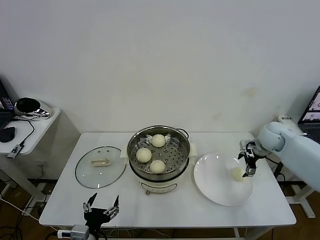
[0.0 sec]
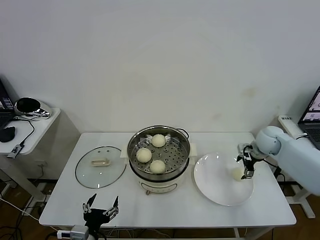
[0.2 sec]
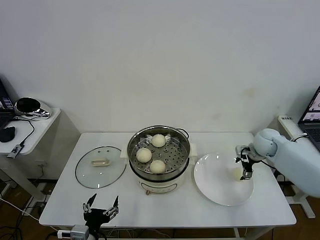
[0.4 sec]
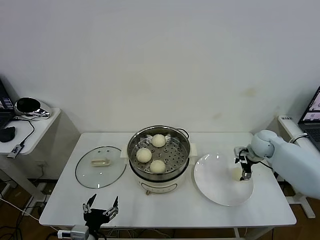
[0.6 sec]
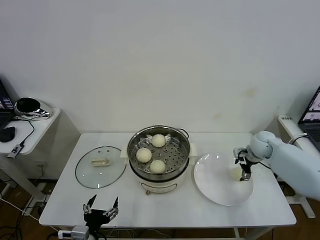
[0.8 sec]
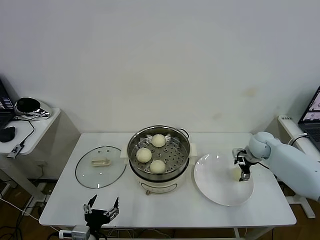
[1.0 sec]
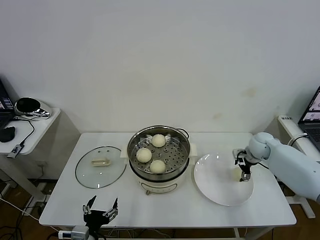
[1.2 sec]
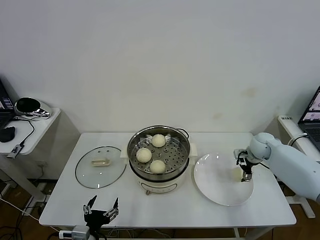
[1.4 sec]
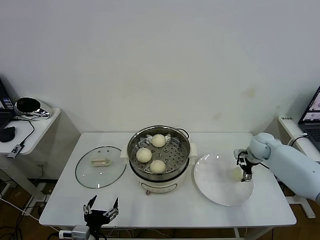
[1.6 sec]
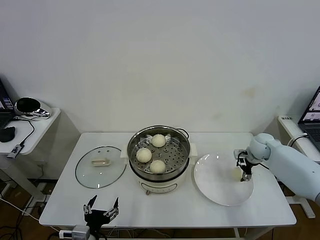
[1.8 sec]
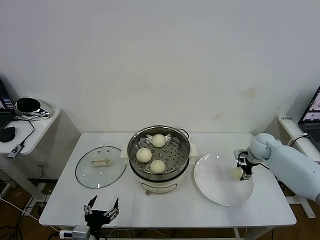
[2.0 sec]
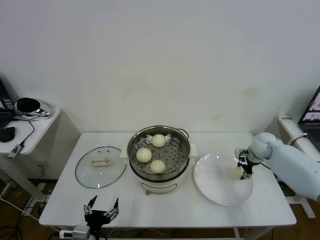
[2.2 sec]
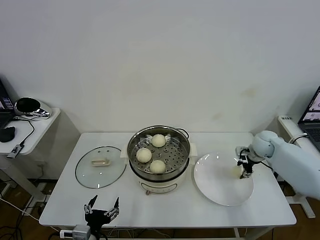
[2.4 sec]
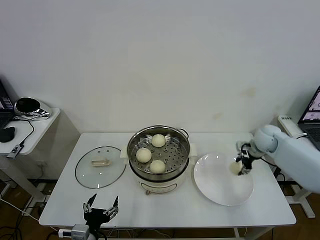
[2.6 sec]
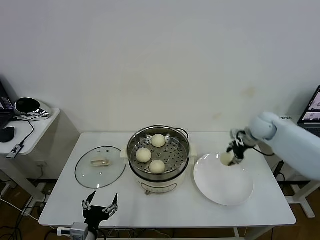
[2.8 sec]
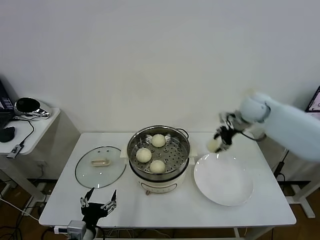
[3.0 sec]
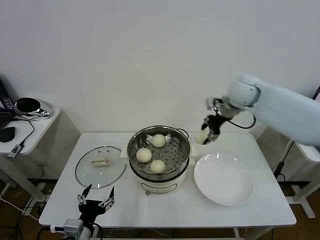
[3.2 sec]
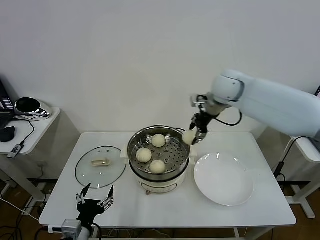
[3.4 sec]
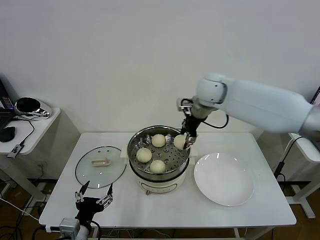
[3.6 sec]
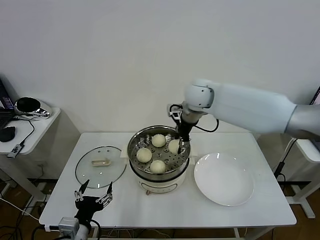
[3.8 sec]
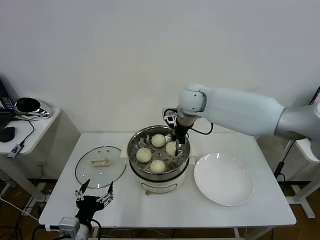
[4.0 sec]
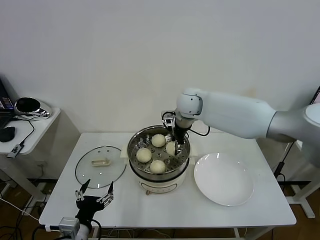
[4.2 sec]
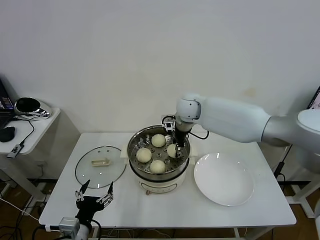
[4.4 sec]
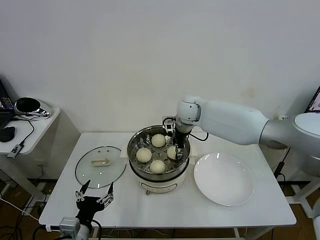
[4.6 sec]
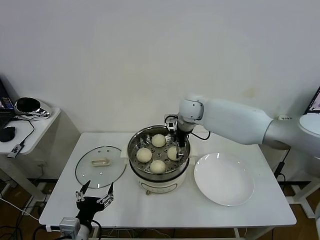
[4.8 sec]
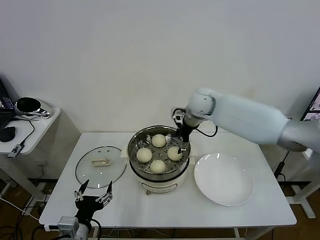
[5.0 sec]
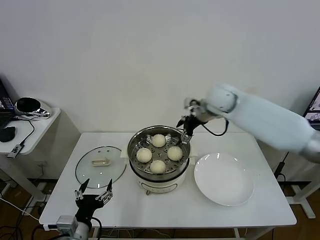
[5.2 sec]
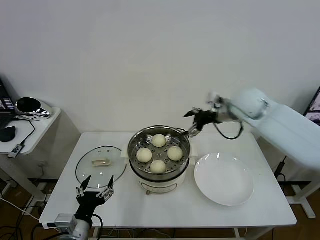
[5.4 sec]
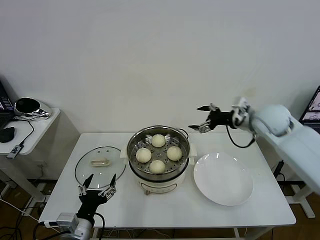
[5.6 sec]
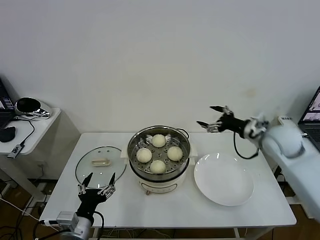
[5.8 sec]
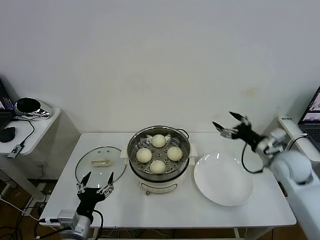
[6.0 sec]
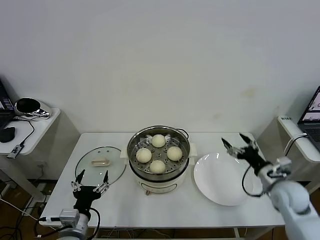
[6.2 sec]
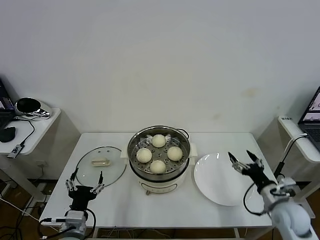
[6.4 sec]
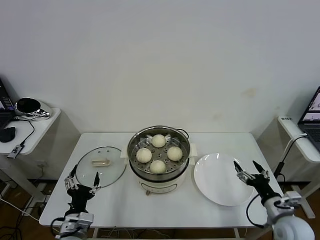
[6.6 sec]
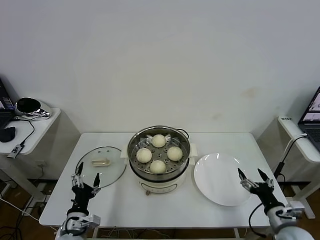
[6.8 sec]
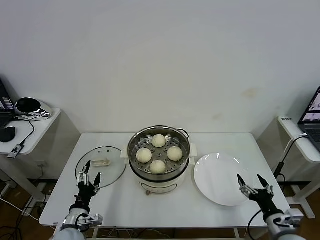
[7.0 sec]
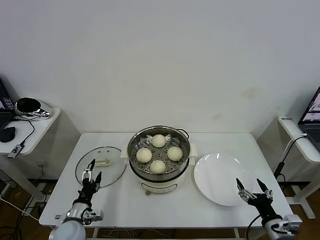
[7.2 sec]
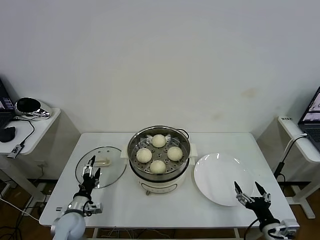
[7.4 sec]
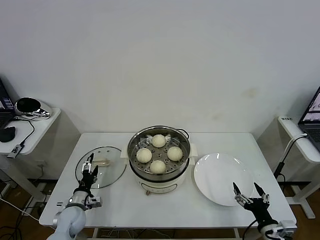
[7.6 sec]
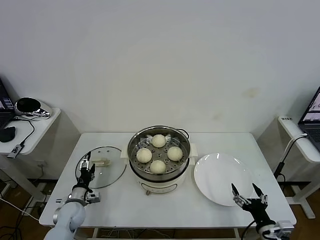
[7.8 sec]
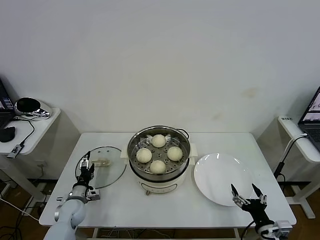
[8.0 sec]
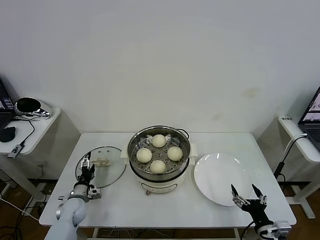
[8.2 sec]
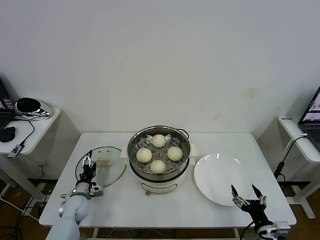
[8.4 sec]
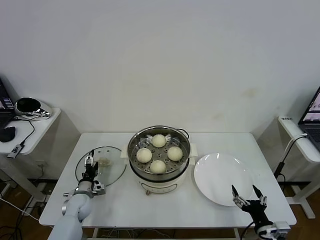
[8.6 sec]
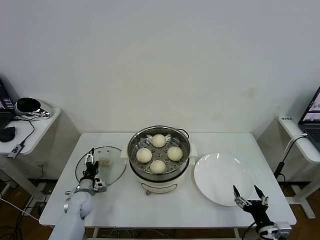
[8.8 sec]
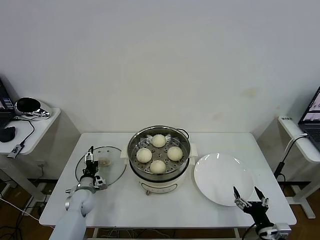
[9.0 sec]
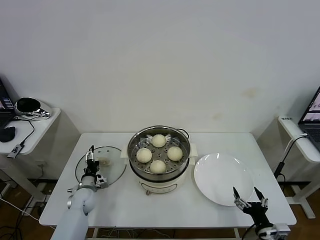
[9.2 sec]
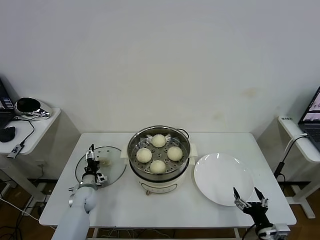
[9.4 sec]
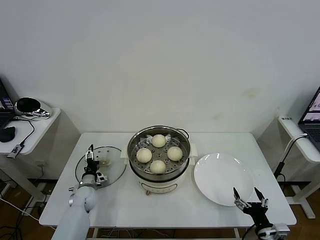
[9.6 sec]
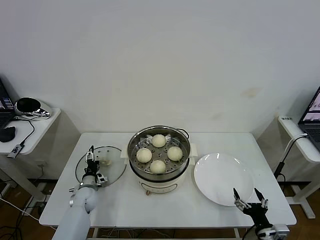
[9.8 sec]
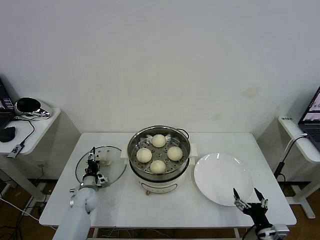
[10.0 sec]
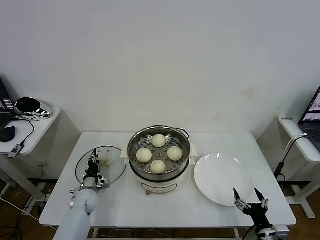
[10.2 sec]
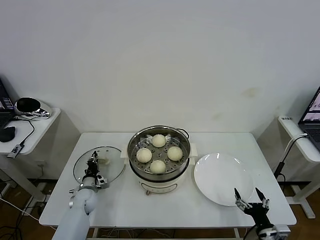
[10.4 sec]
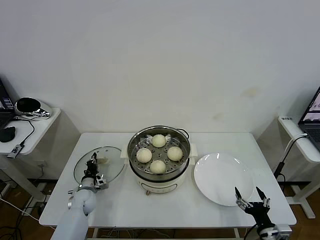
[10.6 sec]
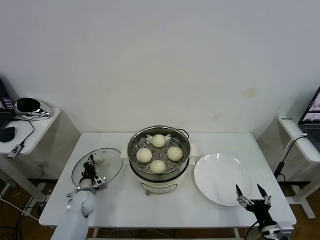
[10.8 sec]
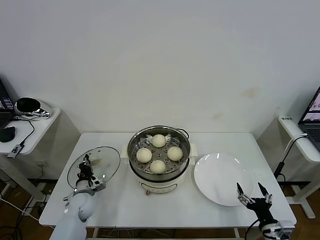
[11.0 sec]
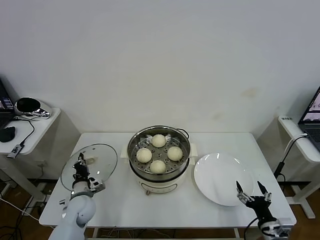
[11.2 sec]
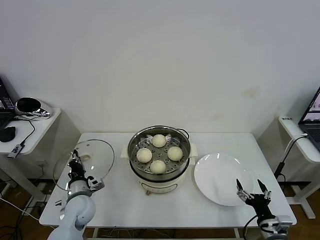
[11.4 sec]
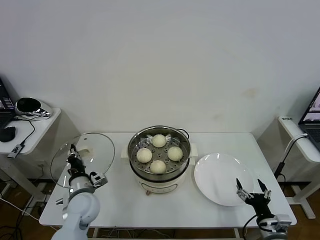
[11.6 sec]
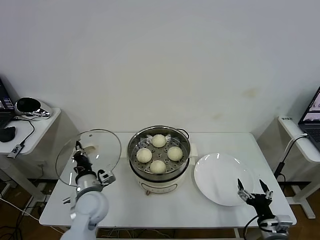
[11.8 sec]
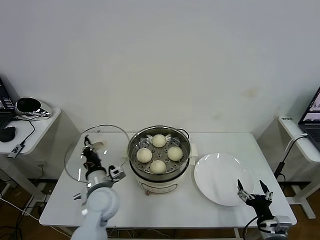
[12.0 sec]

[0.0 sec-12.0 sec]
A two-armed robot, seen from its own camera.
Task of the whole recording: take steamed baozi put them in steamer then cover it.
Step, 0.0 sec to 2.2 sec: Grasp the baozi in the plate with right gripper.
Step, 2.4 sec to 4.8 sec: Place the baozi on the steamer with right gripper.
Step, 5.0 sec to 10.6 sec: Grasp the pot lid with left gripper.
0.0 sec to 1.6 sec: The right gripper goes about 5 cm downward.
1.6 sec to 3.0 sec: The right gripper moves upward and to the left, some 15 cm, and closes.
3.0 sec to 4.4 sec: The right gripper goes roughly 25 cm to the left.
4.4 sec to 6.0 sec: The right gripper travels to the right and backward by approximately 35 cm, and opens.
6.0 sec to 7.6 sec: The left gripper travels downward, forward and to the left by some 20 cm, while the right gripper shifts about 30 cm backward and downward.
7.6 sec to 9.0 sec: The left gripper moves forward, approximately 10 cm.
9.0 sec to 10.4 sec: The left gripper closes its fingers.
10.4 sec to 12.0 sec: The left gripper travels upward, to the right and backward by approximately 25 cm.

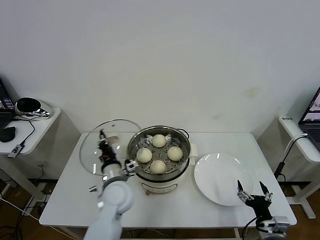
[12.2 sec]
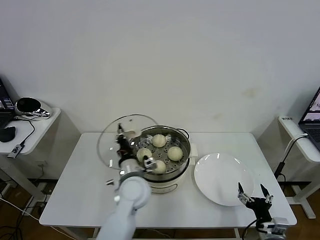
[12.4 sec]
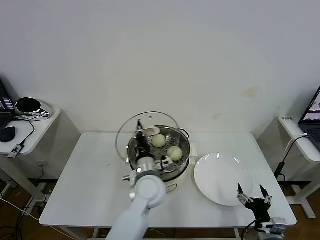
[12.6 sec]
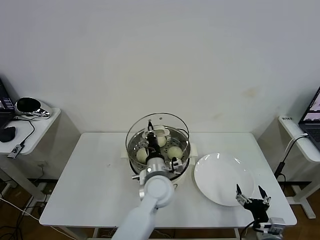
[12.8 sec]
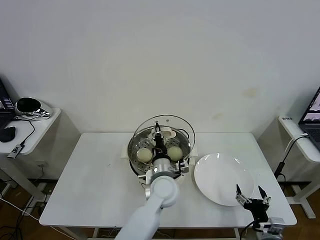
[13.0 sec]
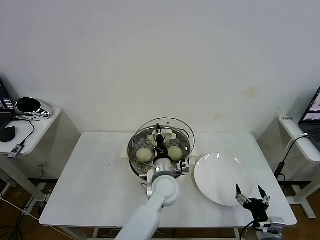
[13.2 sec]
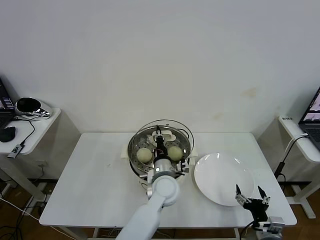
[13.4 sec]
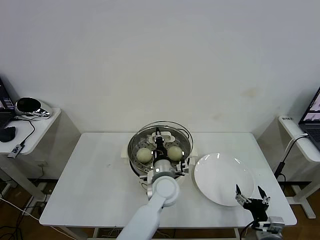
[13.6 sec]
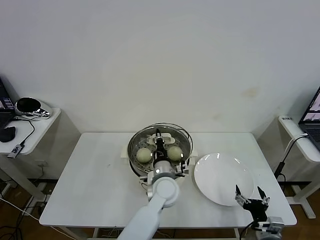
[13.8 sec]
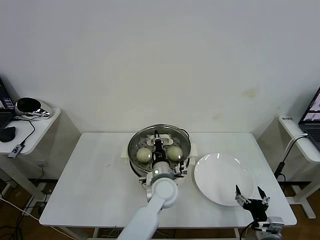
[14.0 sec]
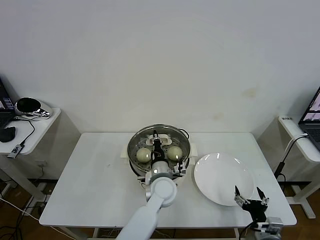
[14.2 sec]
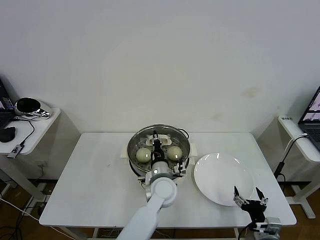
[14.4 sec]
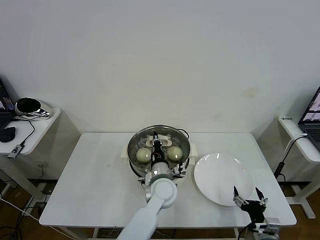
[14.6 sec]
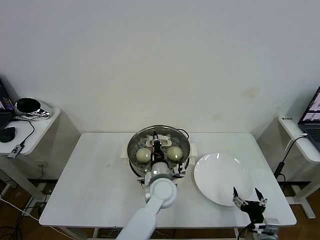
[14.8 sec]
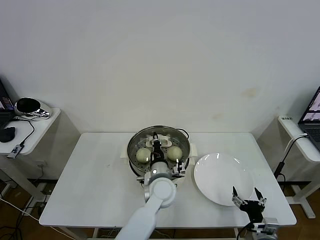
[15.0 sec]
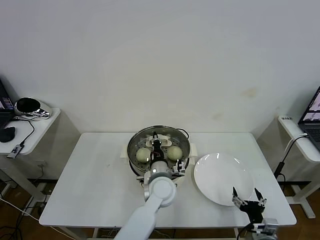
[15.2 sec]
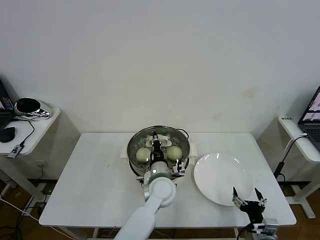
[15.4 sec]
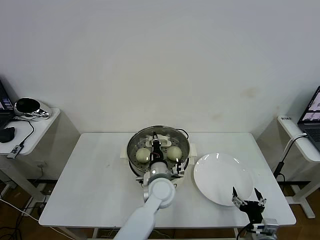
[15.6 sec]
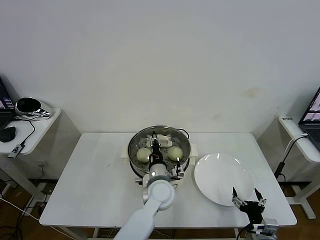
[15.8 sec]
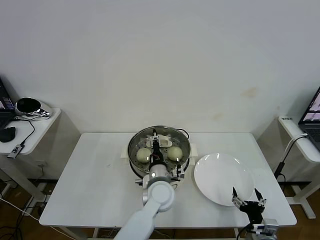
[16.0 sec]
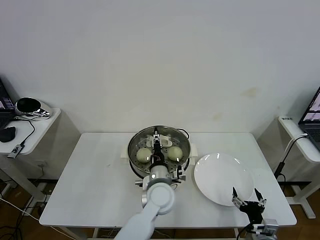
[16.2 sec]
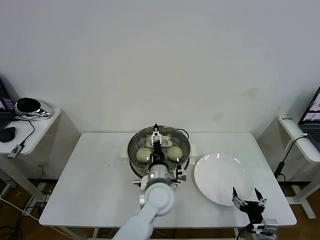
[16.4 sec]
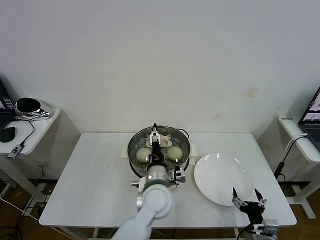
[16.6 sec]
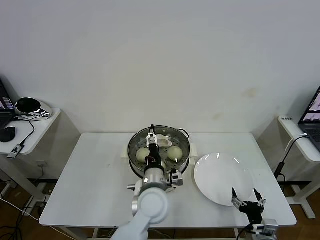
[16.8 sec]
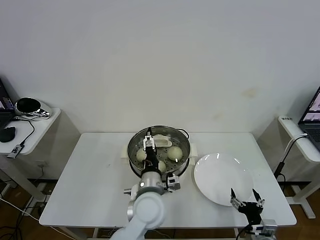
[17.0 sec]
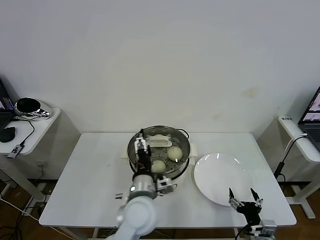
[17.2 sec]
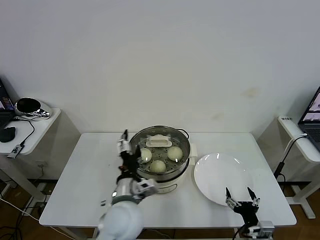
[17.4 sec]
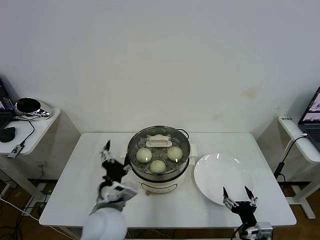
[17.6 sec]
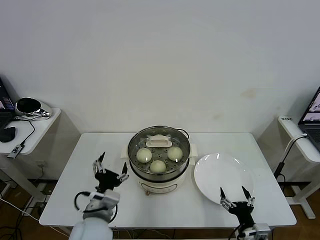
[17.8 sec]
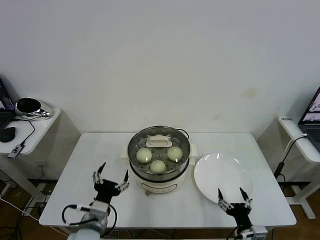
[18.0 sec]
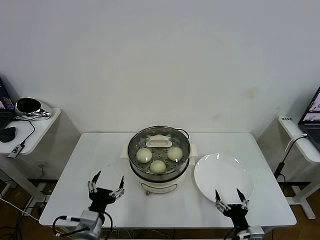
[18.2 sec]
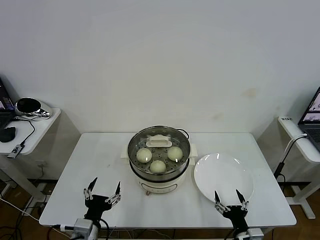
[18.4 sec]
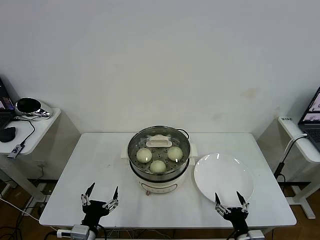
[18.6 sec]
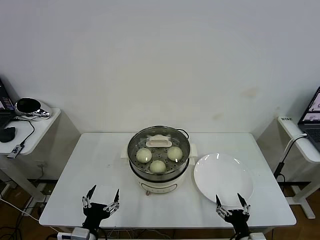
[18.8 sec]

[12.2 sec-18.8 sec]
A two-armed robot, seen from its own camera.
Task of the whole recording: take steamed baozi put them in steamer then cover it.
Step, 12.2 sec to 16.2 sec: Place the pot lid on the steamer with left gripper.
12.2 sec to 13.8 sec: The left gripper travels to the right by about 15 cm.
13.8 sec to 15.4 sec: The grippers make only small movements.
15.4 sec to 17.2 sec: The left gripper travels backward and upward by some 10 cm, and opens its fingers.
17.2 sec to 18.8 sec: The right gripper changes place by about 5 cm. Meanwhile the left gripper is displaced to the left, backward and downward by some 25 cm.
